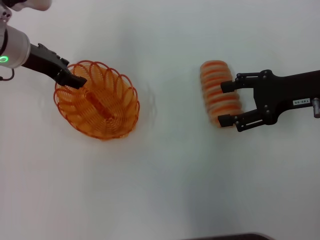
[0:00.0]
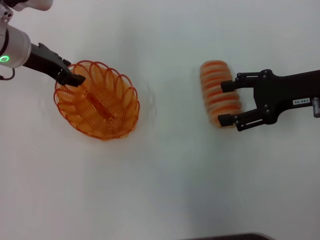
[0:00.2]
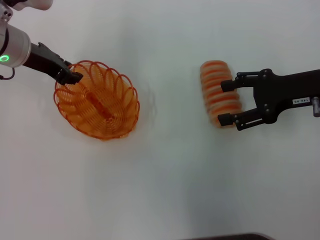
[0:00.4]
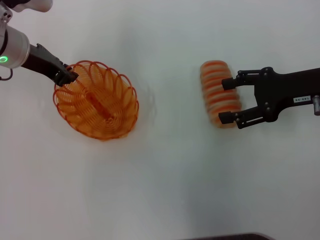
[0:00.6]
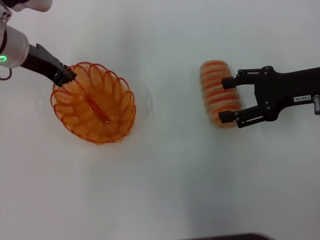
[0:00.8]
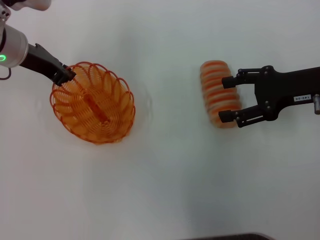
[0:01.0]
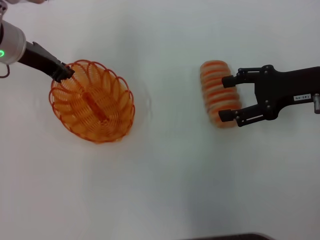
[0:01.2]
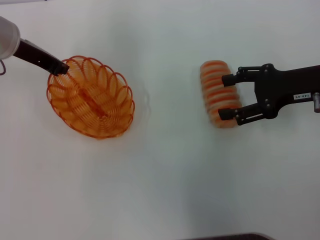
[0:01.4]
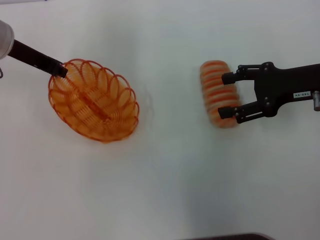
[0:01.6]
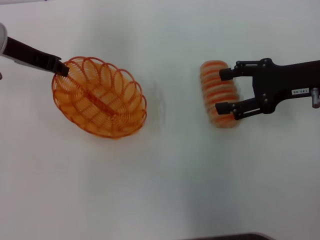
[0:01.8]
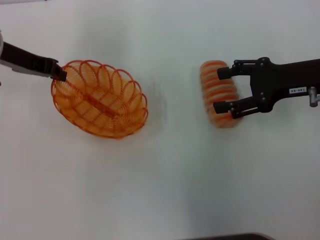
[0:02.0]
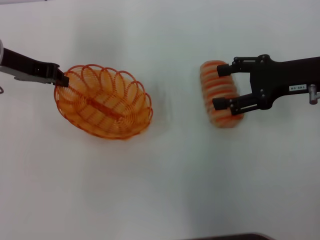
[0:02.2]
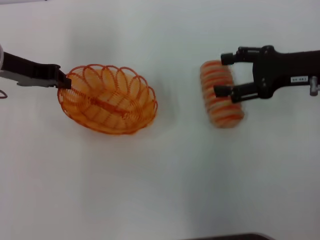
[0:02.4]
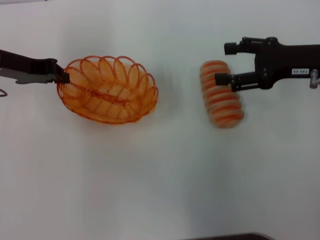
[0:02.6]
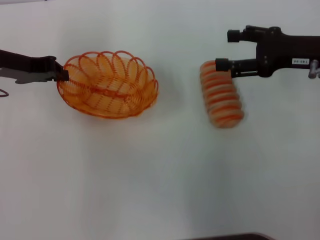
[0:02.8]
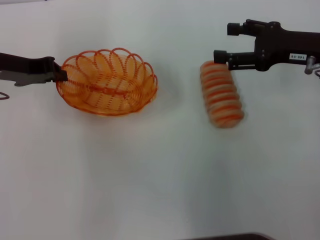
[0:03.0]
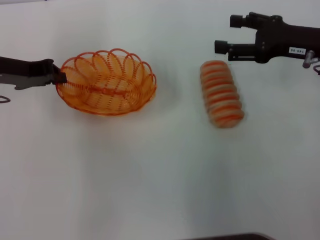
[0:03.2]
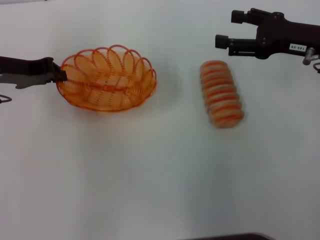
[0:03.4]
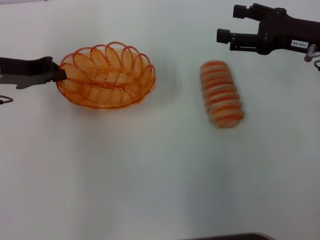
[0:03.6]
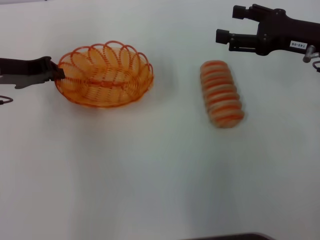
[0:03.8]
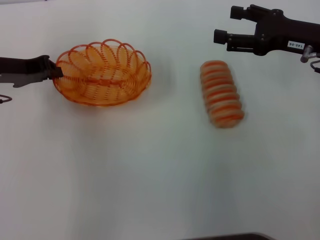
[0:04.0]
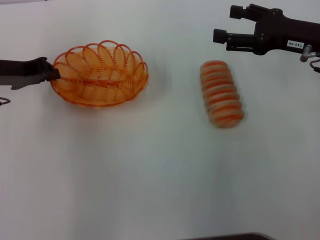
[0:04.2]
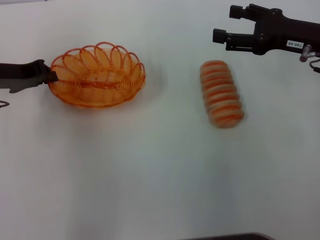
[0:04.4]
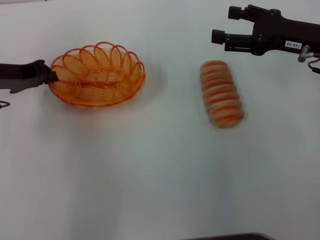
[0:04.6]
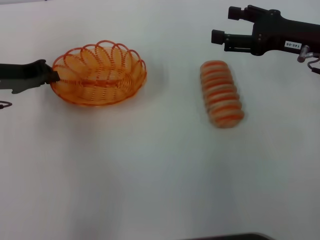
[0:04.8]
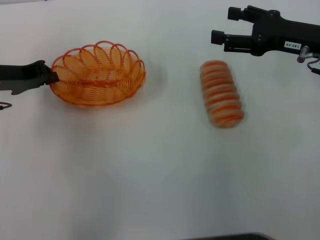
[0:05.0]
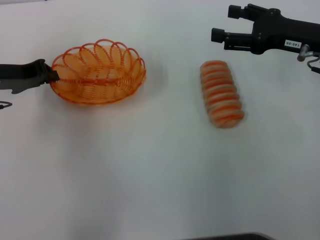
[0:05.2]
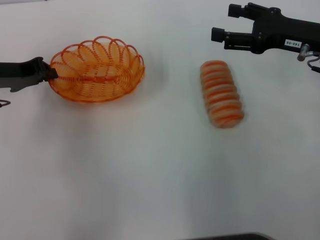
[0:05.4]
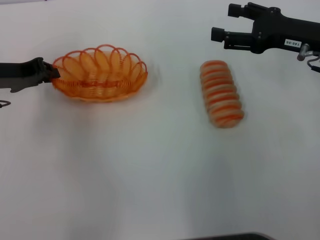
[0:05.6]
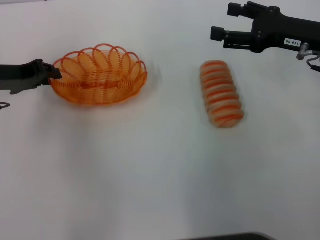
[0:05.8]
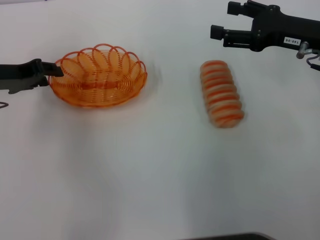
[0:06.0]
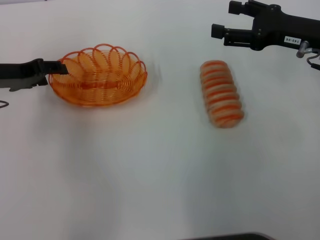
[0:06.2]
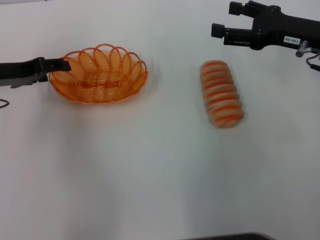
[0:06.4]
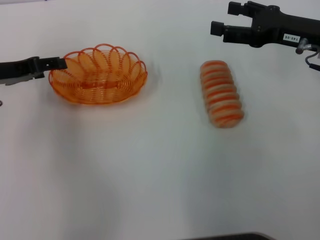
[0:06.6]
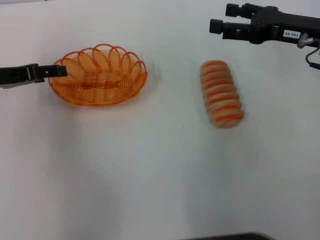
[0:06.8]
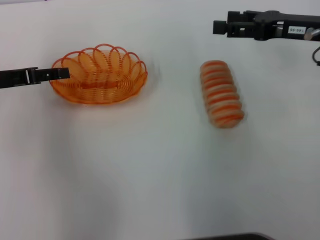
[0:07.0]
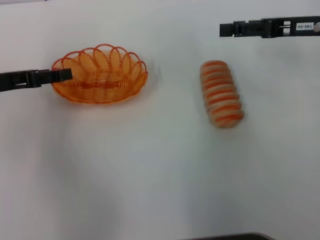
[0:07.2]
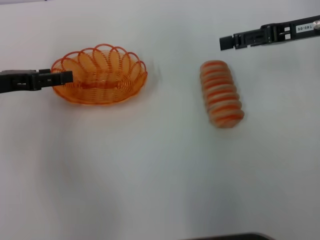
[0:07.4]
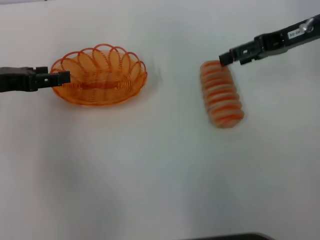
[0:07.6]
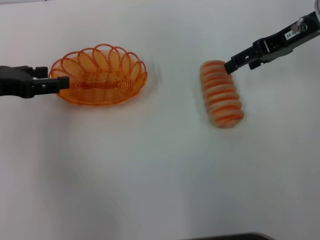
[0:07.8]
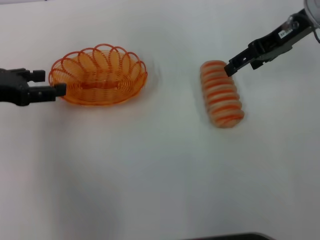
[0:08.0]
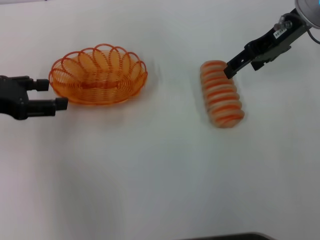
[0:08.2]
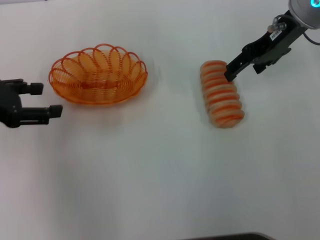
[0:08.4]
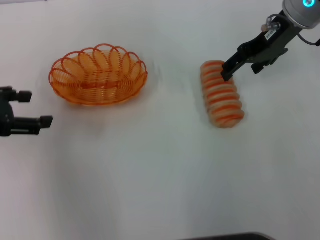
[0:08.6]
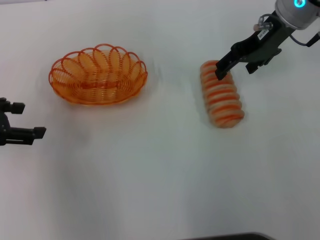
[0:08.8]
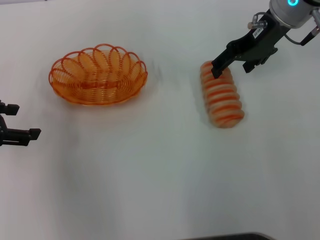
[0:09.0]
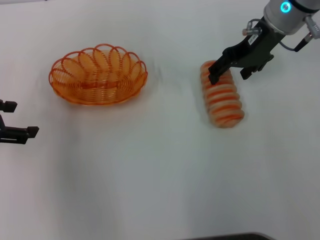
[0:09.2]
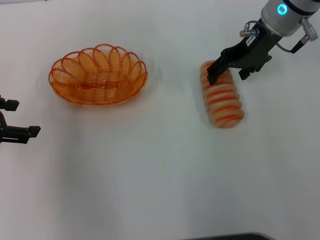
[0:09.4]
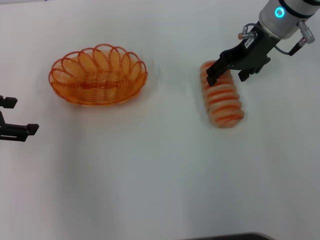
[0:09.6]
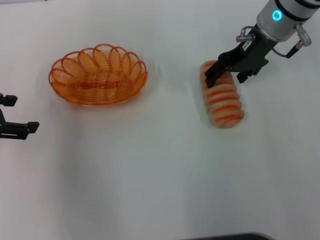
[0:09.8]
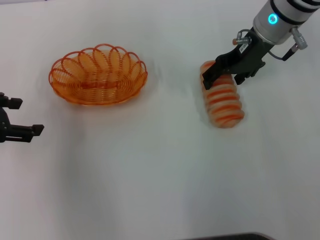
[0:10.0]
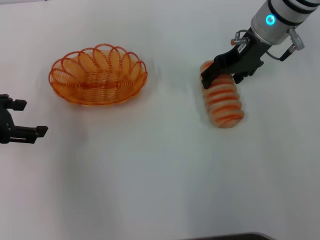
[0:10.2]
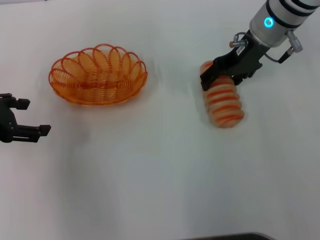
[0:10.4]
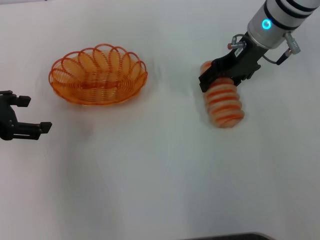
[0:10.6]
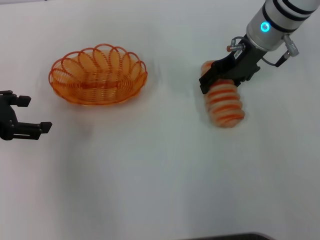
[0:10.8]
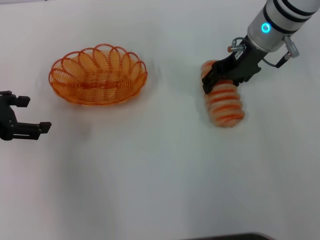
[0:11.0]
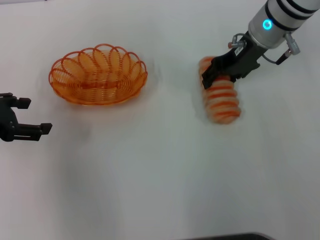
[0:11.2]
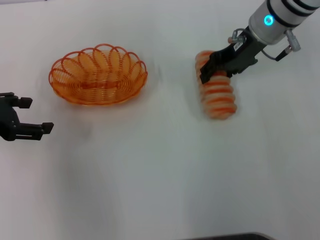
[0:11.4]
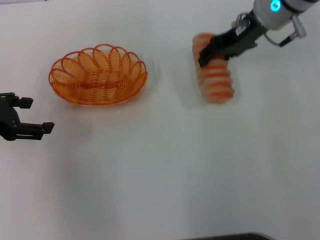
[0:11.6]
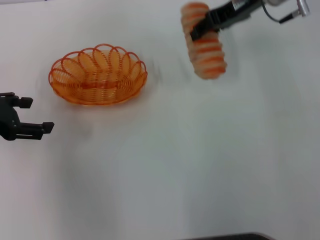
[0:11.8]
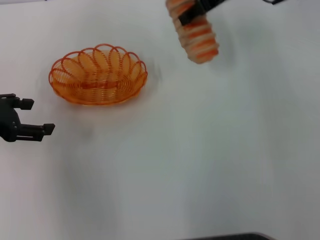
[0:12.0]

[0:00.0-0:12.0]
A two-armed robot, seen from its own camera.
Step, 0:02.0 to 0:08.0: Place the basket in the center of view with the left gripper.
Step, 0:08.4 to 0:11.4: Pick up the long bread with the right gripper.
0:00.0 to 0:01.6: The left gripper closes up.
0:01.6 to 0:03.0: The left gripper moves about 5 cm.
0:03.0 to 0:04.4: The grippers move only a little.
0:04.4 to 0:06.0: Neither gripper changes place.
0:06.0 to 0:07.6: The right gripper moves roughly 5 cm. Meanwhile the left gripper opens.
0:07.6 to 0:09.0: The right gripper shifts approximately 10 cm to the left.
0:09.0 to 0:10.4: The grippers move only a little.
0:10.4 to 0:12.0: The right gripper moves upward, some 5 cm, and closes its fingers.

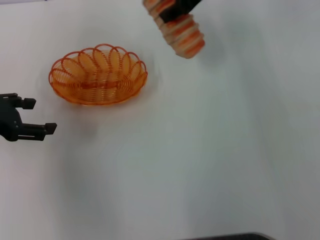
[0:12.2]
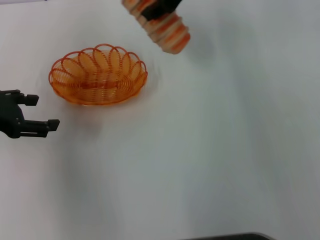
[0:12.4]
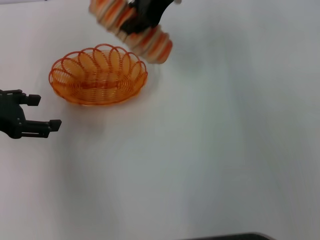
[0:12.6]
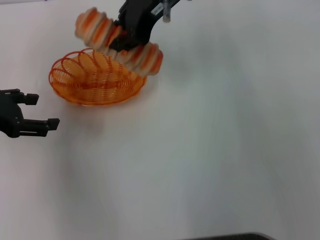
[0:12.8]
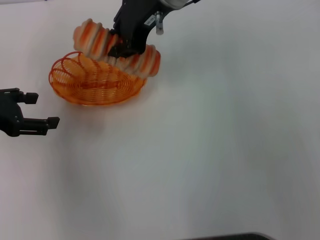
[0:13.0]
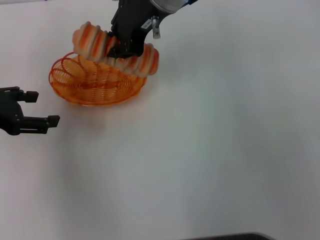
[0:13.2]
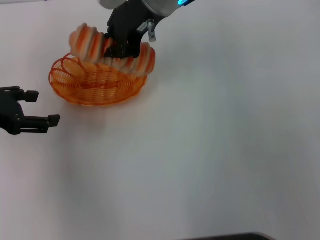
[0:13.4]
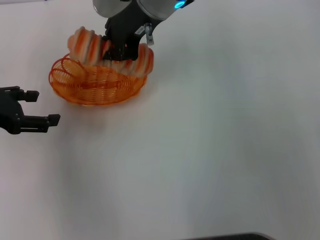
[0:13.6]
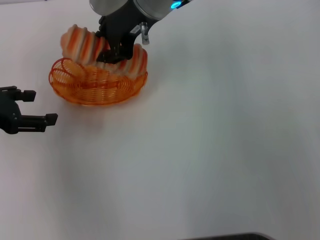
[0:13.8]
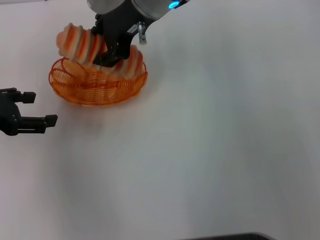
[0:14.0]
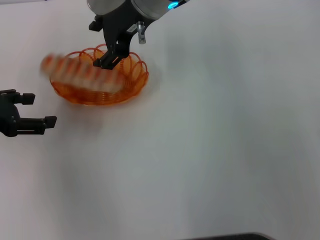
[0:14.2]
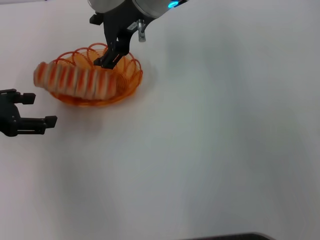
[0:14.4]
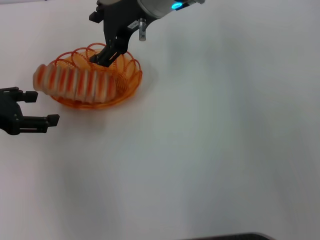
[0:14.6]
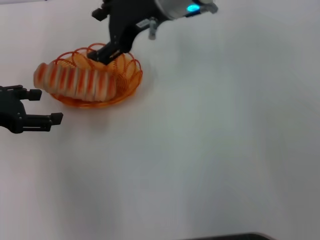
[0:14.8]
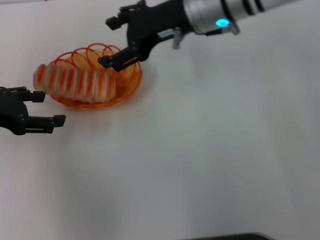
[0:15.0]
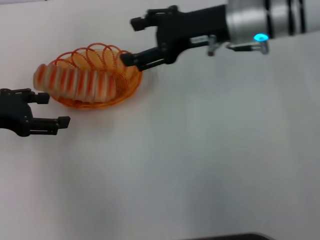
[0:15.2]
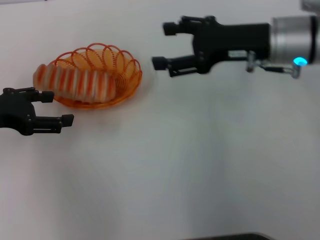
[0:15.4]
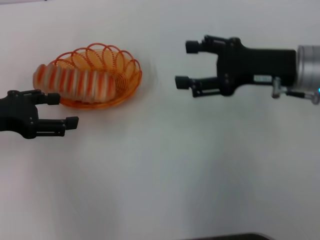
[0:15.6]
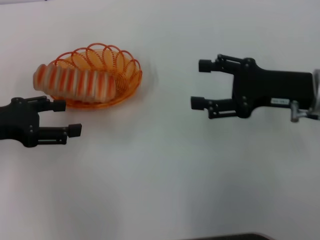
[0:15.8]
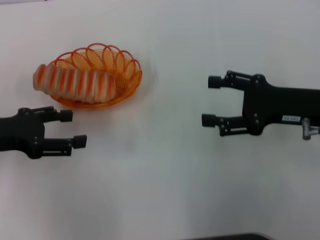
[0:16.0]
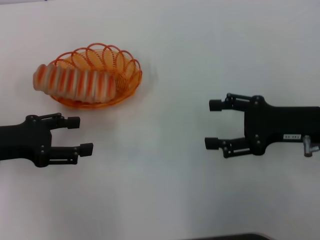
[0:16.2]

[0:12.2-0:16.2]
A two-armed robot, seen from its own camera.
Step, 0:12.2 to 0:15.0: Place the long bread into the basket with the right gripper.
0:12.2 to 0:13.6: The right gripper moves to the left, some 10 cm, and closes its fingers.
0:13.6 to 0:14.8: The right gripper opens.
0:14.8 to 0:16.2: The left gripper moves roughly 5 cm; the right gripper moves to the right, backward and downward, about 30 cm.

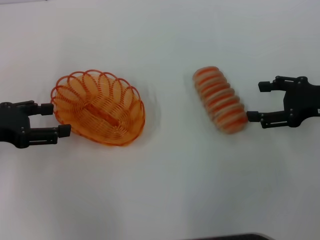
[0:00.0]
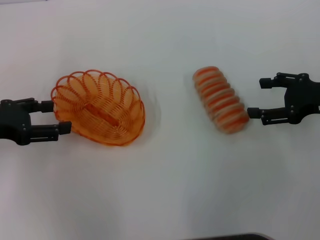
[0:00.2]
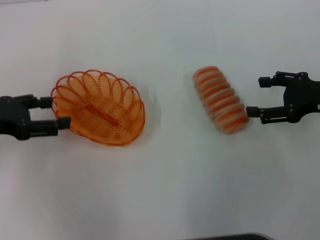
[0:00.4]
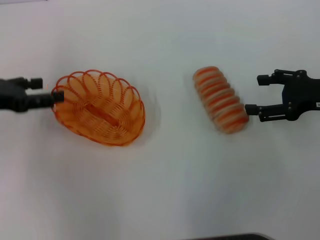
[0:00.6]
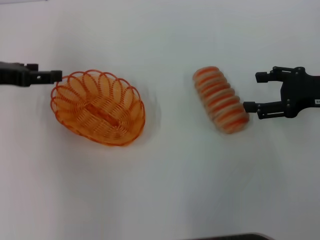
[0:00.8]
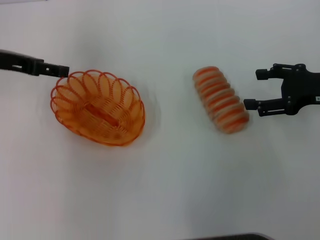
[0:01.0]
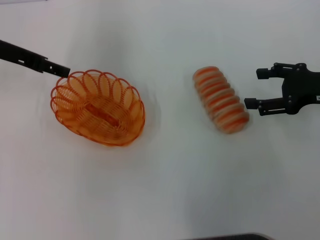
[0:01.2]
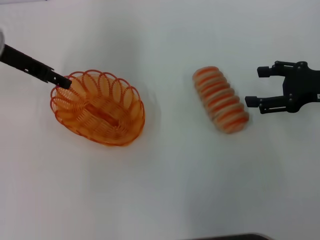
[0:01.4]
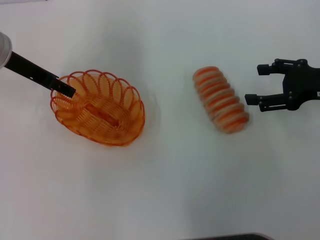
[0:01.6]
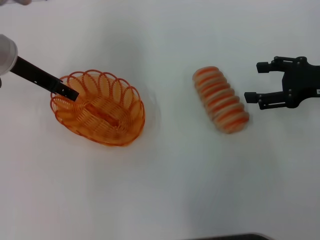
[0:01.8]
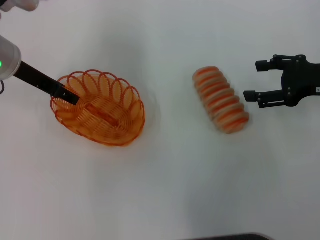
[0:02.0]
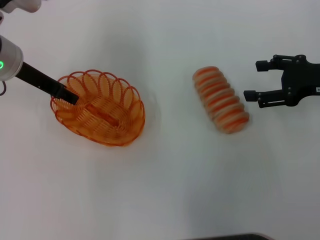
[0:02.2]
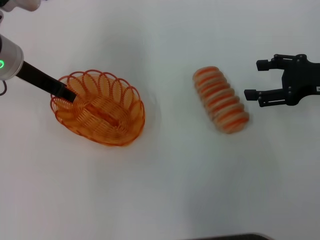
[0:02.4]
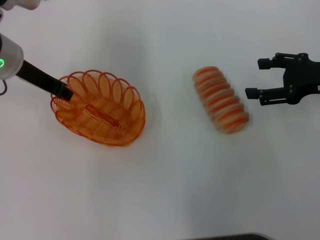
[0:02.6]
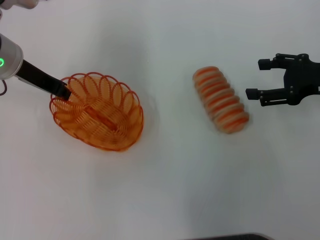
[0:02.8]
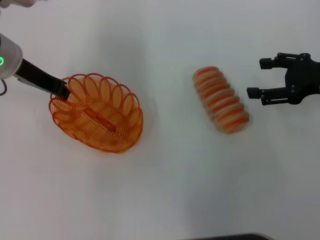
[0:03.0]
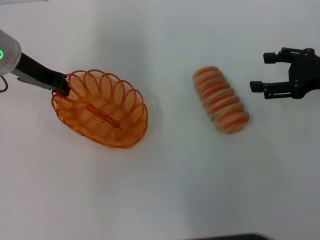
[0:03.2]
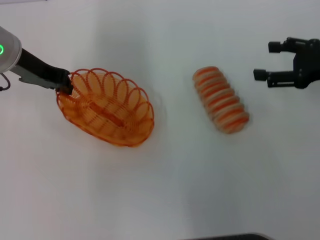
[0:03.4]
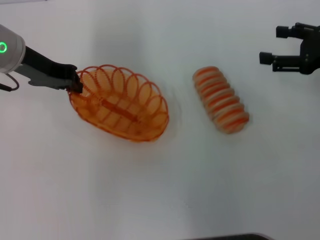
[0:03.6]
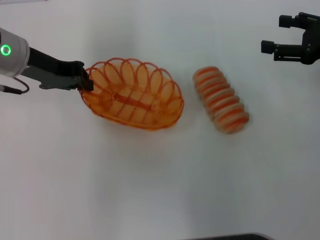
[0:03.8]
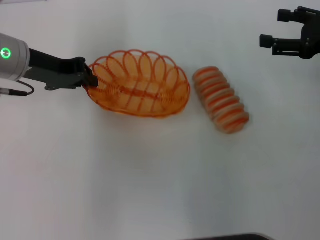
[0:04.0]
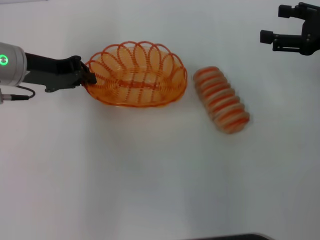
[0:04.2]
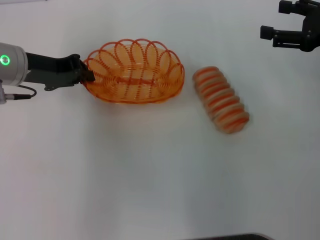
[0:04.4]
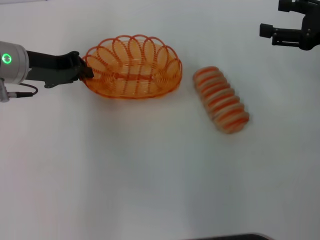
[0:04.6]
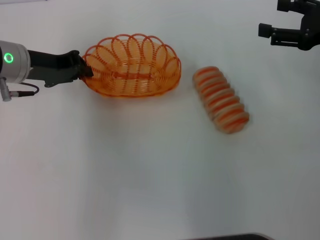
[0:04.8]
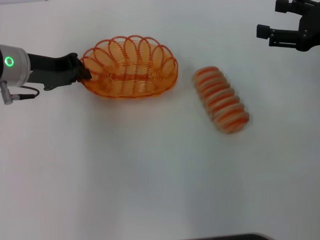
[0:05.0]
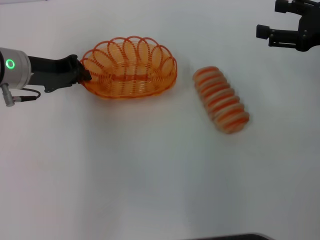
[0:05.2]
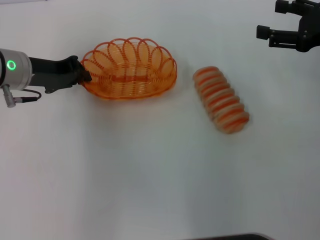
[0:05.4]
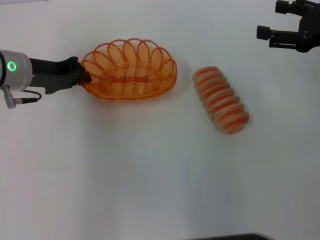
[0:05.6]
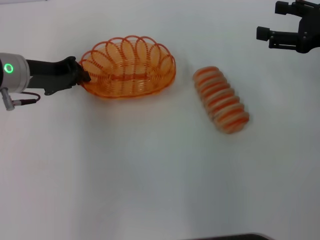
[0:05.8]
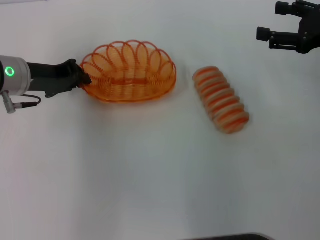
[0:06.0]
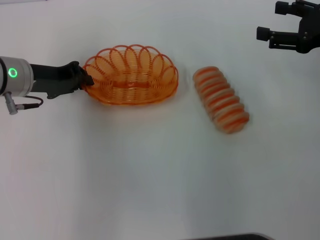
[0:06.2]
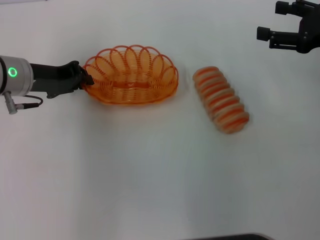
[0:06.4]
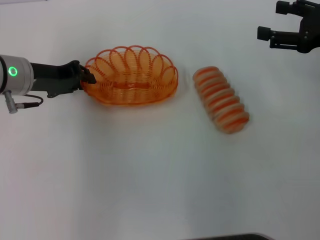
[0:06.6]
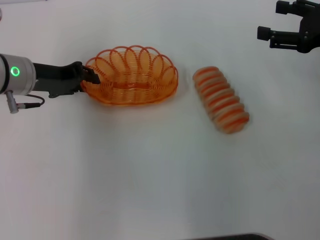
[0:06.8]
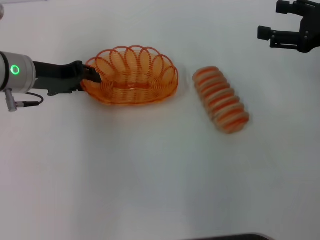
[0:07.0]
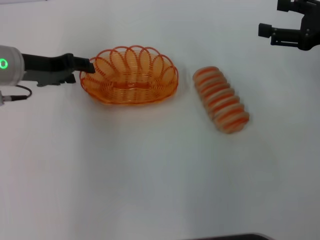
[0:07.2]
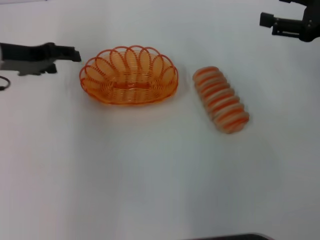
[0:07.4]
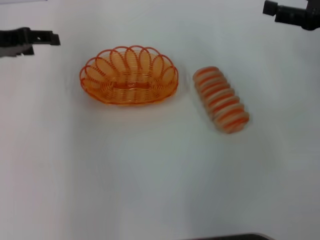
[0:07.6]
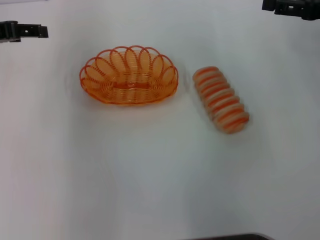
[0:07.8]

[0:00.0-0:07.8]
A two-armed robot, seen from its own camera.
Step, 0:00.0 to 0:03.2: Pick up the basket with the left gripper.
Step, 0:03.6 to 0:07.2: Place the basket in the center of view with the left gripper.
0:00.0 to 0:01.6: The left gripper is displaced forward and to the right by roughly 15 cm.
0:01.6 to 0:03.2: The left gripper closes up.
0:04.6 to 0:06.2: There are only small adjustments of the grippers.
0:06.2 to 0:07.8: The left gripper travels upward and to the left by approximately 10 cm, and opens up.
